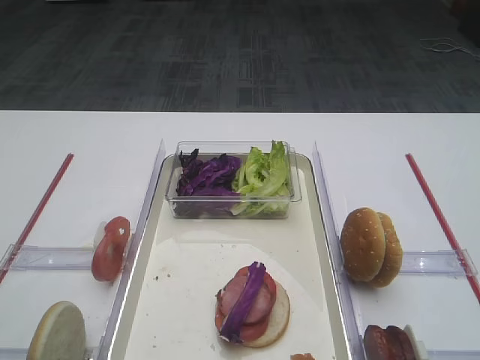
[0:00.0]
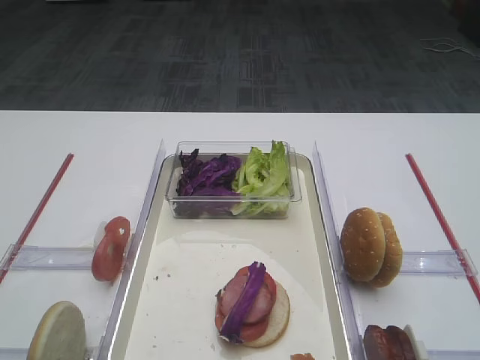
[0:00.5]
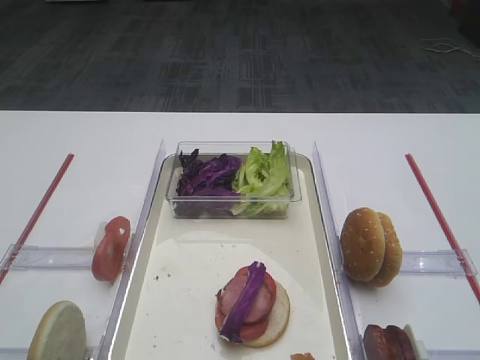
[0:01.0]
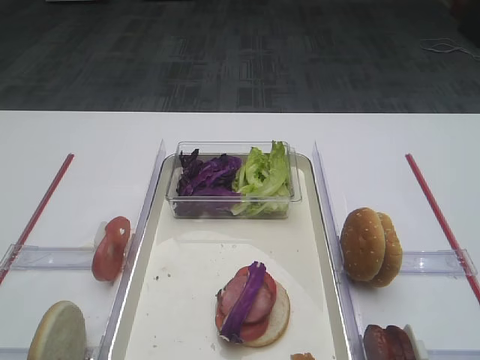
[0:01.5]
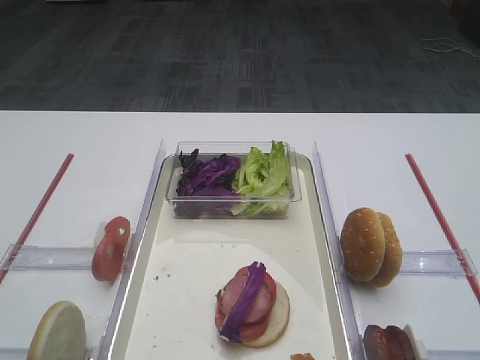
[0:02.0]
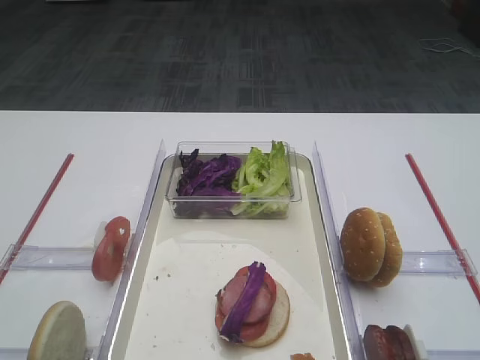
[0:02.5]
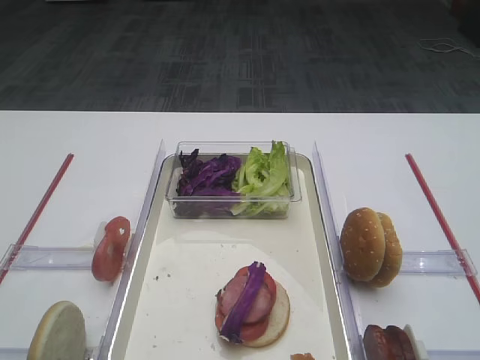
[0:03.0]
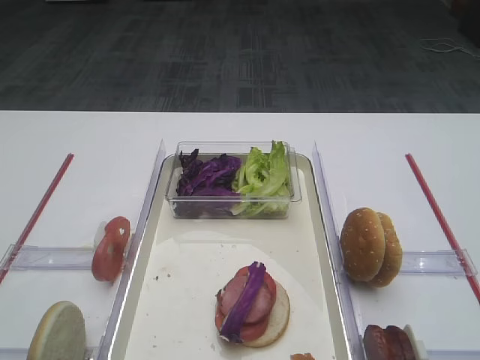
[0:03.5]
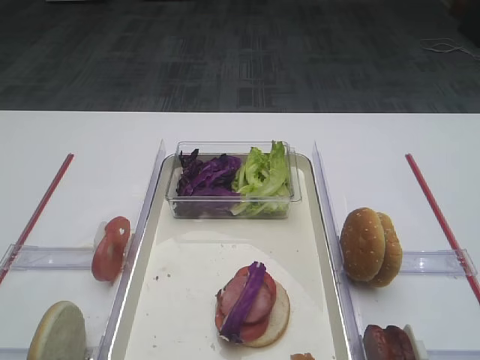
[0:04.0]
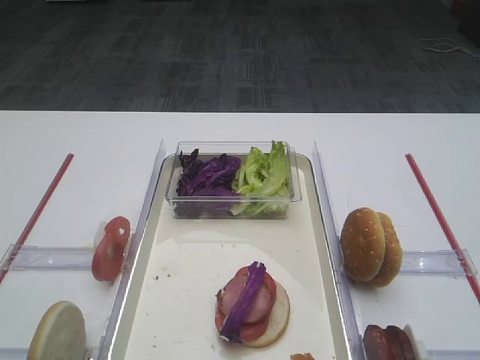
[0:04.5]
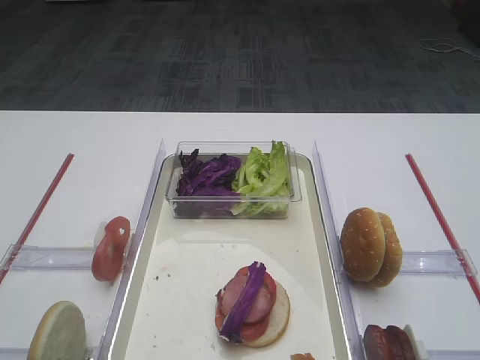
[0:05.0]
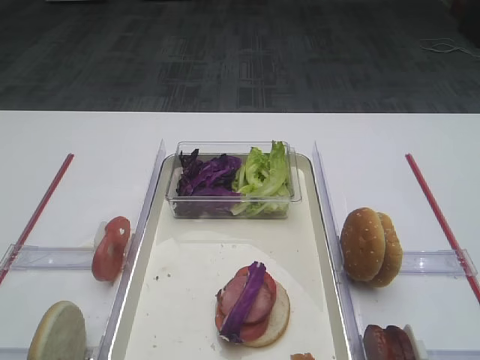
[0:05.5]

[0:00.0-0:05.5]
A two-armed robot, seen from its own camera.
0:02.0 to 0:05.5: Both grippers stay put.
